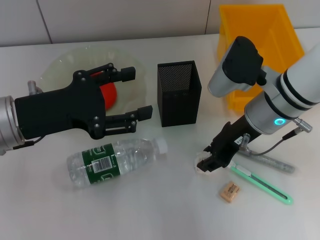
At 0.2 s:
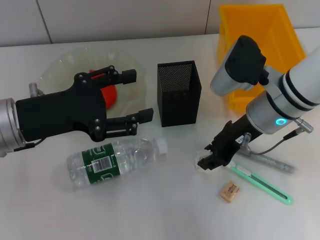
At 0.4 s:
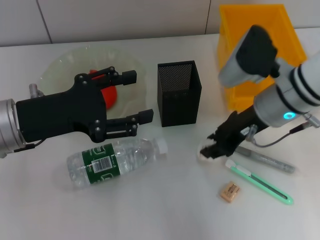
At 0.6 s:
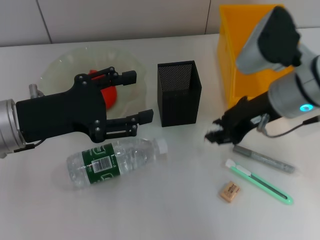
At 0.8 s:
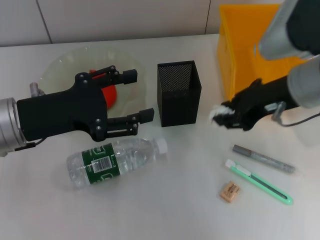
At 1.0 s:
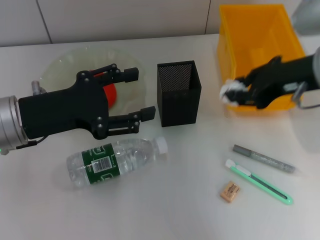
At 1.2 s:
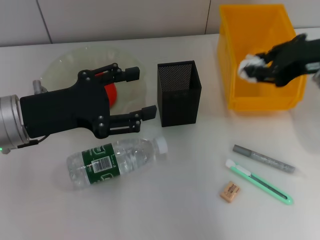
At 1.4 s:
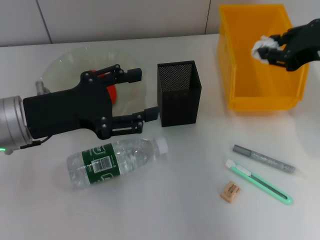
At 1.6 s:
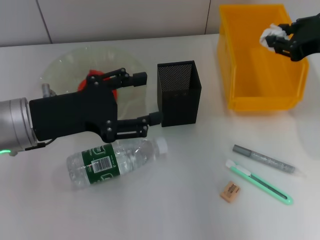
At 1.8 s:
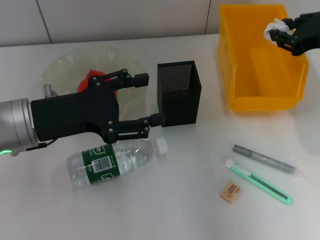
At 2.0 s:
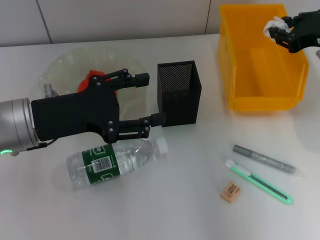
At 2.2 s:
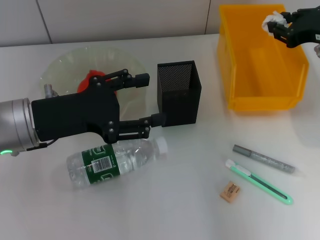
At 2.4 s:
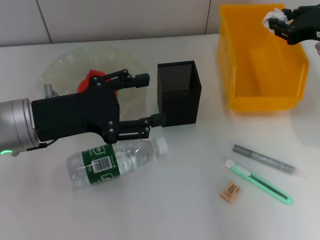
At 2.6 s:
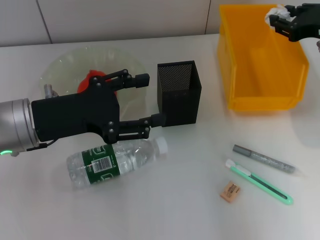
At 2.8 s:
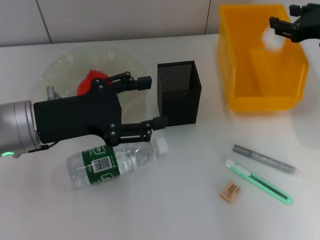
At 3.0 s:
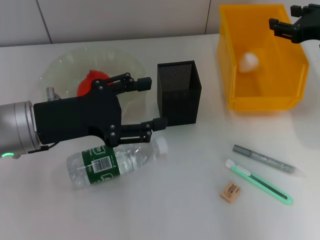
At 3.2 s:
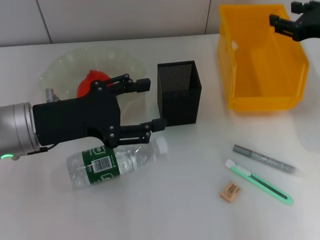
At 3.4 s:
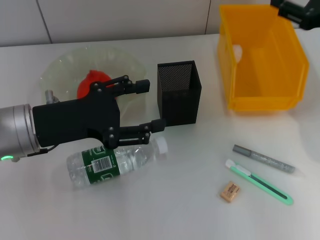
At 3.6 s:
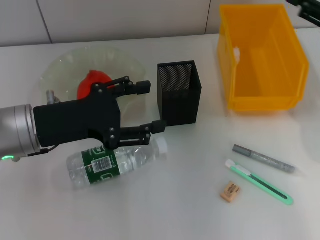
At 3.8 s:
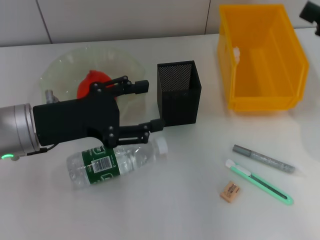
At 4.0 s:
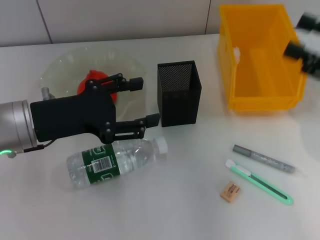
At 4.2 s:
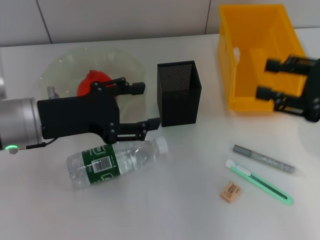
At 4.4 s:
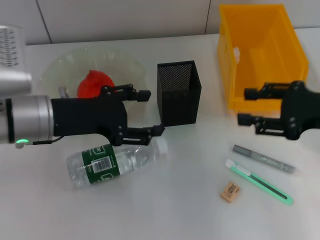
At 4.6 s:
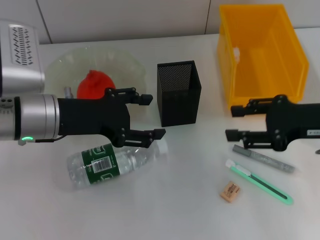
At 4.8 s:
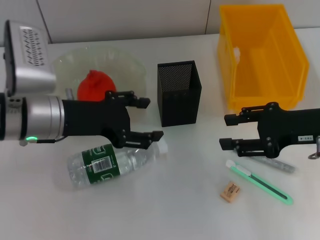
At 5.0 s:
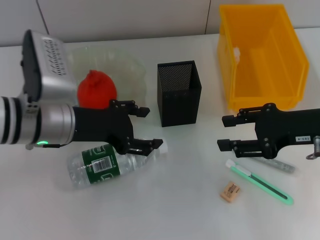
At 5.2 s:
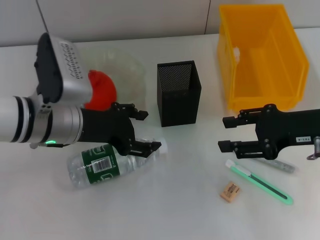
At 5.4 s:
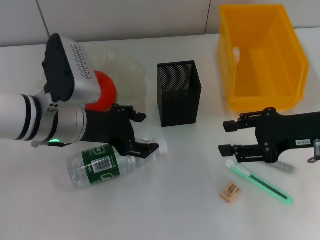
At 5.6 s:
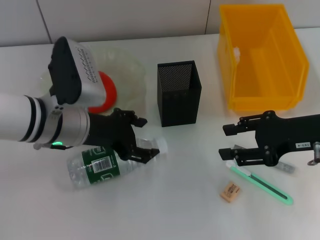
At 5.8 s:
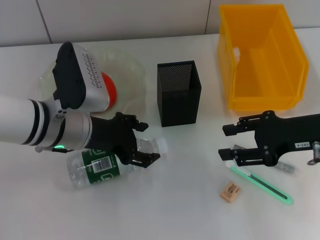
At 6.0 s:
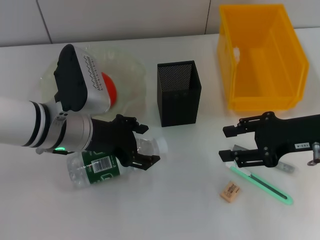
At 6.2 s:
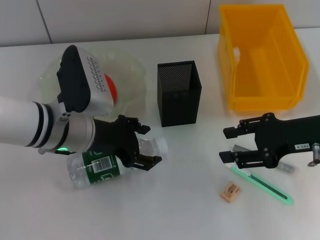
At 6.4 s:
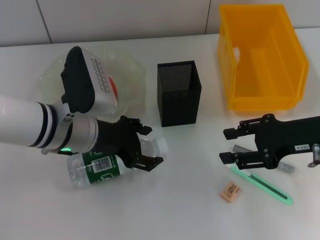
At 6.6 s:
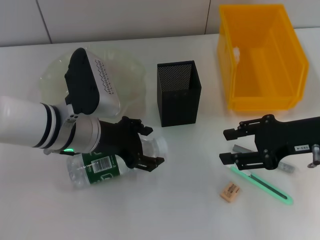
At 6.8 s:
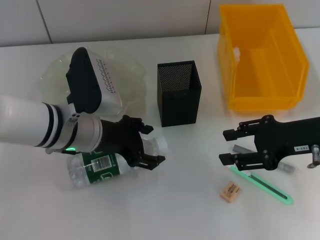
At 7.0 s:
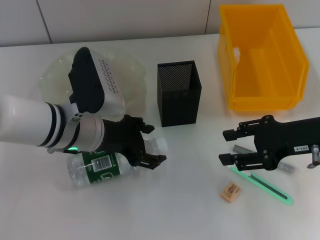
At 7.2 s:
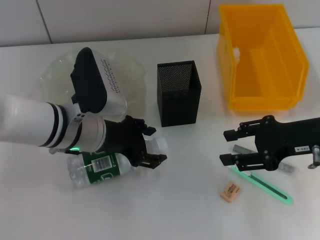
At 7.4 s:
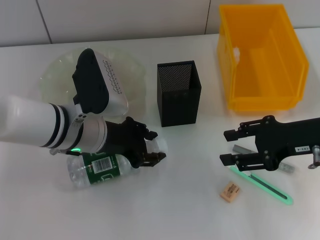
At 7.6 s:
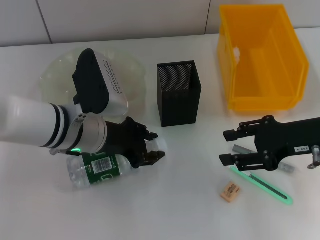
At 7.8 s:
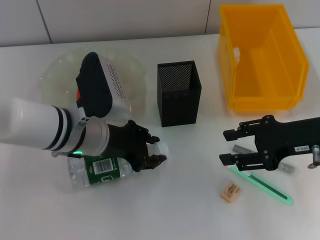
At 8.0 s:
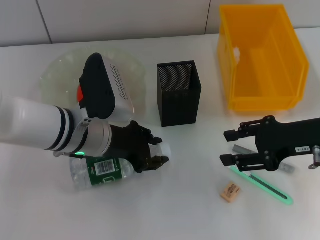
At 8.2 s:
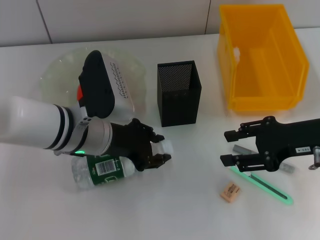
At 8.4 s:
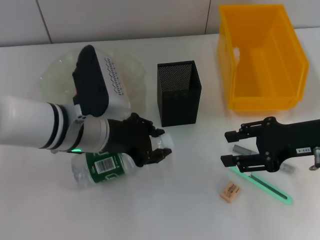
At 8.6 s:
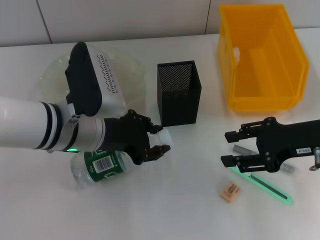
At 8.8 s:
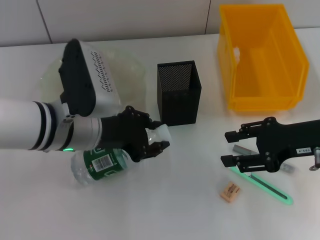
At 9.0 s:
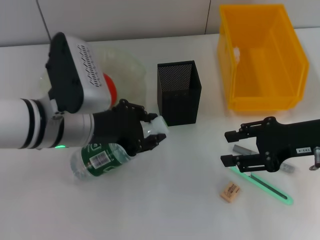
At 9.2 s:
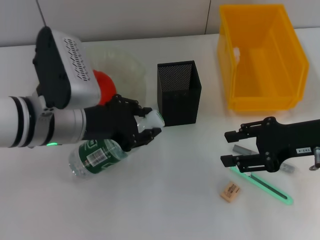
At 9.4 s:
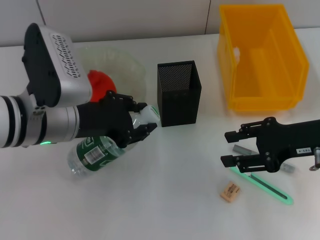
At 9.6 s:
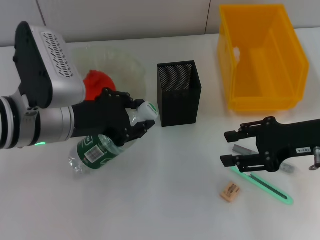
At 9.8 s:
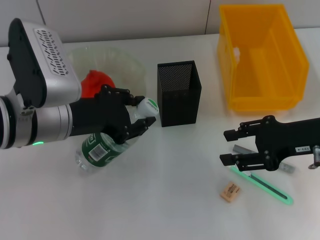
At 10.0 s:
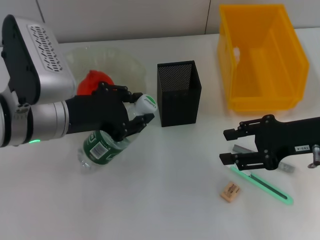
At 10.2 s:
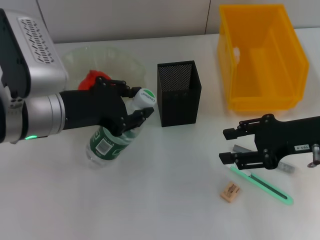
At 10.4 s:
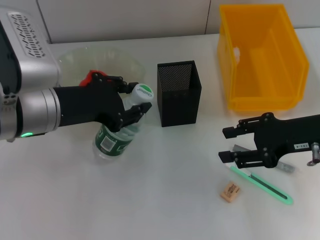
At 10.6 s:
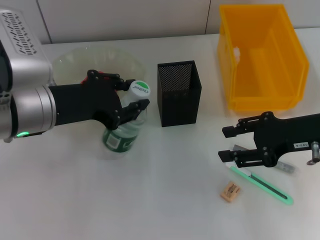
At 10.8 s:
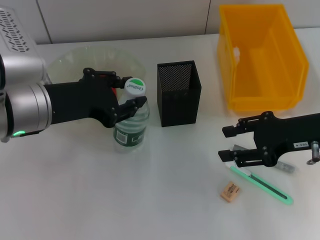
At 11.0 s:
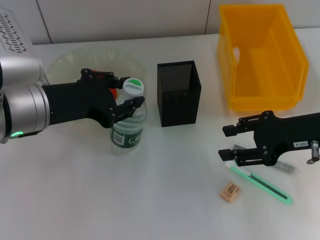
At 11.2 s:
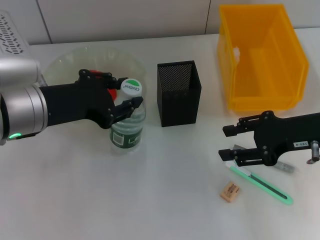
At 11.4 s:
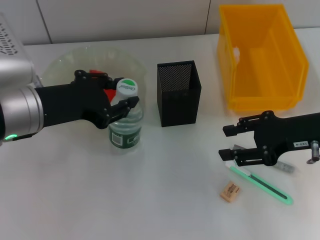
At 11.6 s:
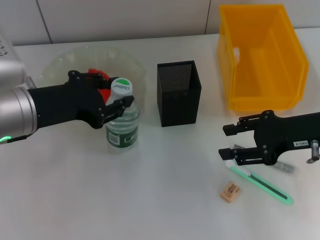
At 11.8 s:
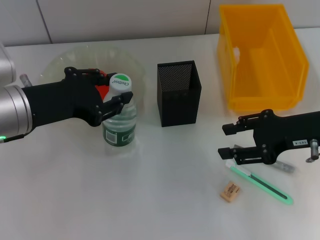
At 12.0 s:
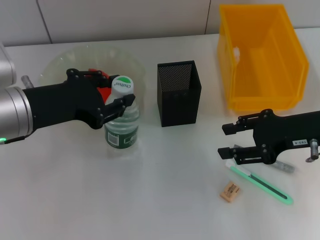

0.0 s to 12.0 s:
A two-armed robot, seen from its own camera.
Step, 0.2 to 2.8 s: Place the paper ball into the trash can with the right hand.
Step, 3.2 to 7.8 s: Grab the water bottle with the left hand.
0.0 to 1.6 s: The right gripper shifts some 15 cm to the right and upward.
1.6 to 3.0 s: The right gripper changes place by roughly 5 cm, and opens up.
3.0 to 4.4 s: The right gripper travels backward by roughly 10 cm.
4.4 to 6.0 s: The left gripper shifts by some 5 cm.
6.0 to 7.6 s: The left gripper closes up.
7.6 to 9.0 s: The grippers move only a little.
9.0 to 10.4 s: The grippers make only small movements.
10.4 to 12.0 s: The grippers stay close to where they were, moving slightly.

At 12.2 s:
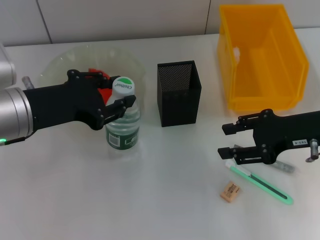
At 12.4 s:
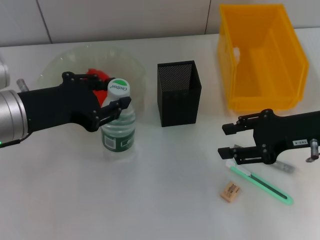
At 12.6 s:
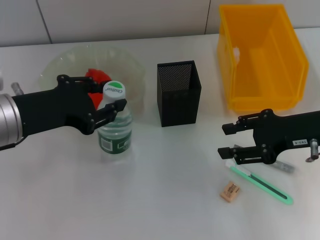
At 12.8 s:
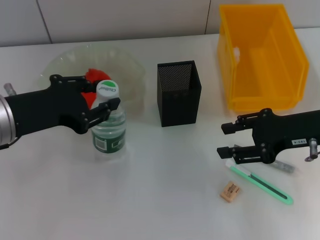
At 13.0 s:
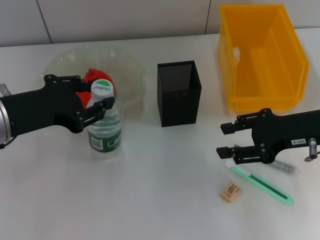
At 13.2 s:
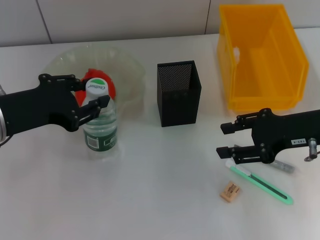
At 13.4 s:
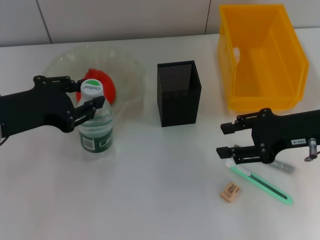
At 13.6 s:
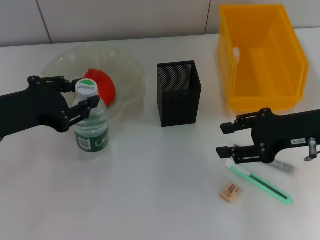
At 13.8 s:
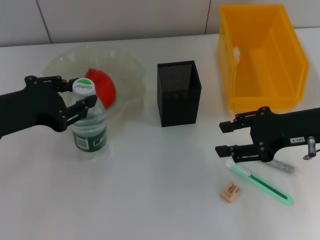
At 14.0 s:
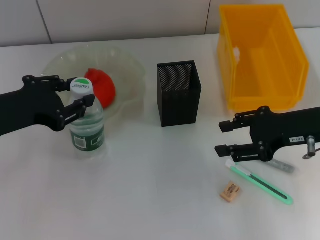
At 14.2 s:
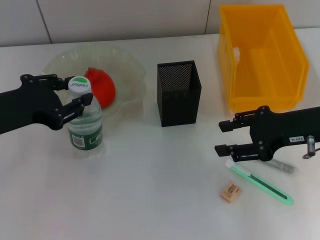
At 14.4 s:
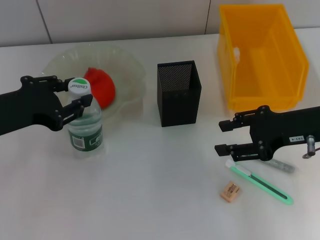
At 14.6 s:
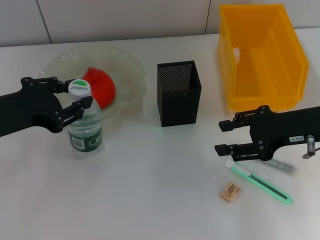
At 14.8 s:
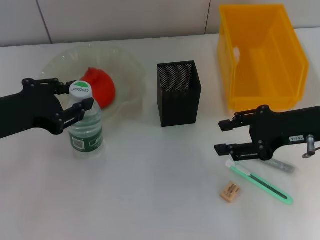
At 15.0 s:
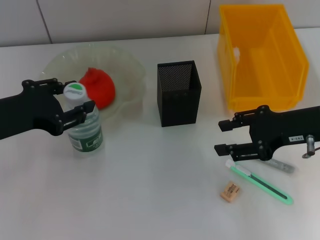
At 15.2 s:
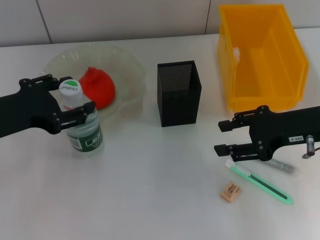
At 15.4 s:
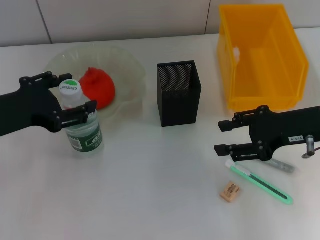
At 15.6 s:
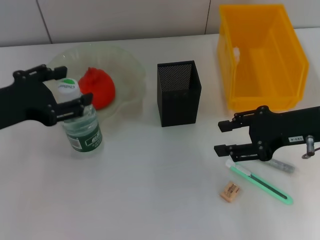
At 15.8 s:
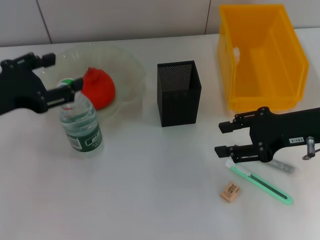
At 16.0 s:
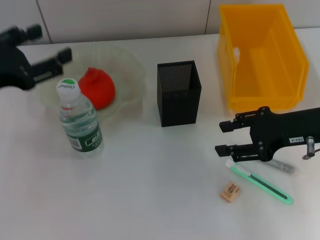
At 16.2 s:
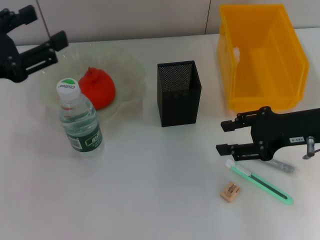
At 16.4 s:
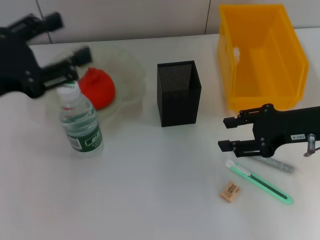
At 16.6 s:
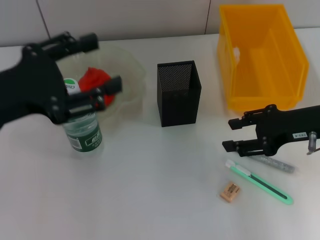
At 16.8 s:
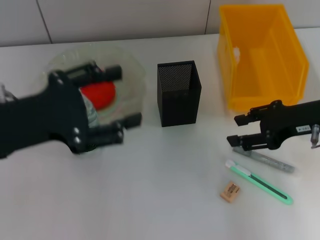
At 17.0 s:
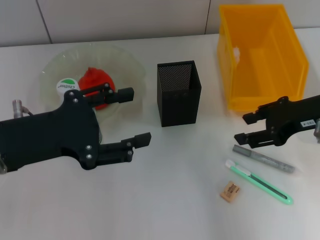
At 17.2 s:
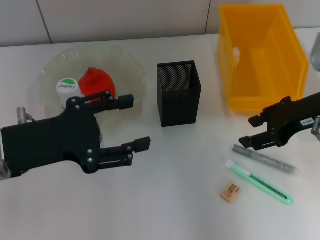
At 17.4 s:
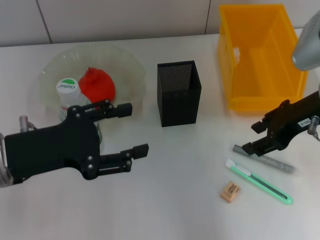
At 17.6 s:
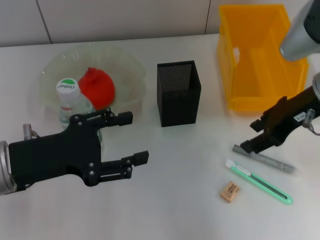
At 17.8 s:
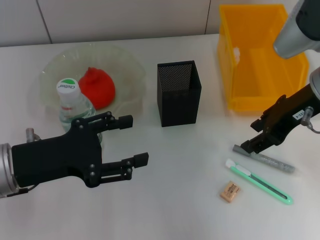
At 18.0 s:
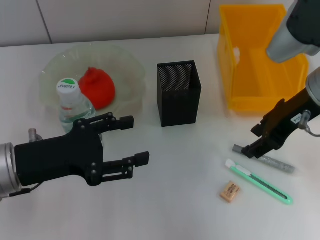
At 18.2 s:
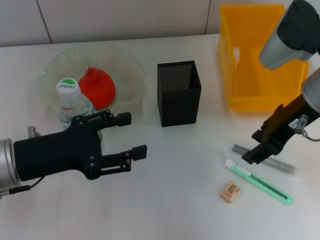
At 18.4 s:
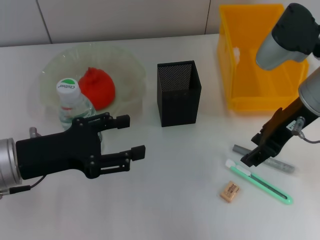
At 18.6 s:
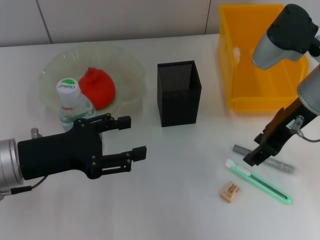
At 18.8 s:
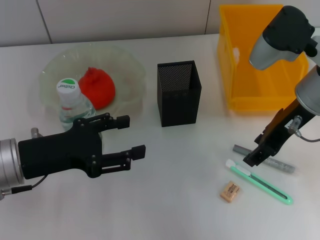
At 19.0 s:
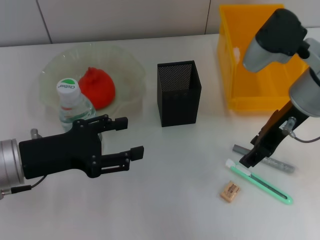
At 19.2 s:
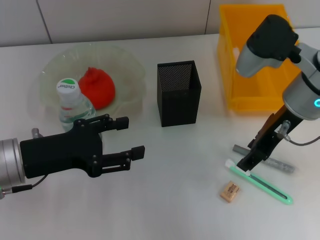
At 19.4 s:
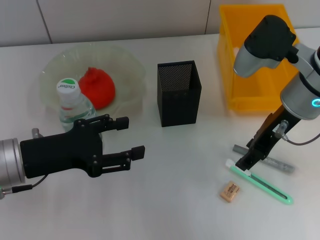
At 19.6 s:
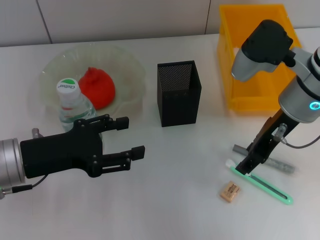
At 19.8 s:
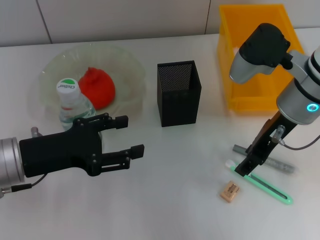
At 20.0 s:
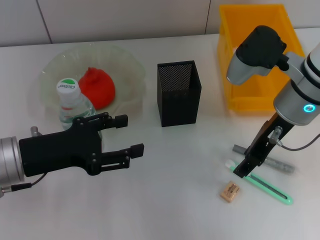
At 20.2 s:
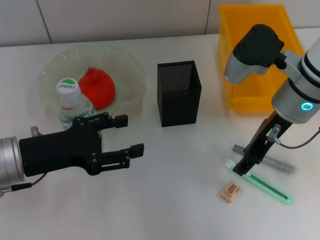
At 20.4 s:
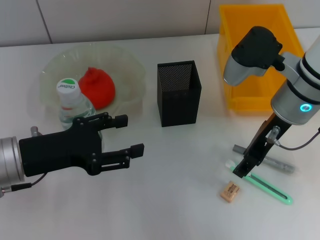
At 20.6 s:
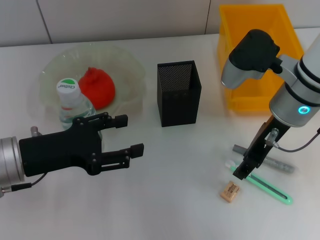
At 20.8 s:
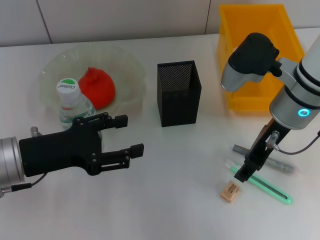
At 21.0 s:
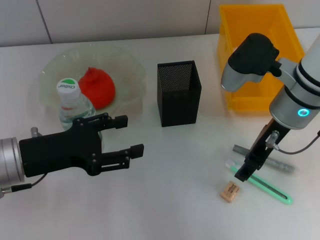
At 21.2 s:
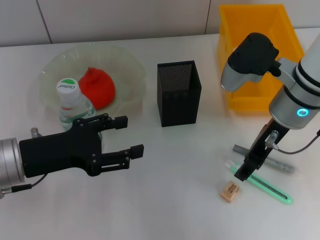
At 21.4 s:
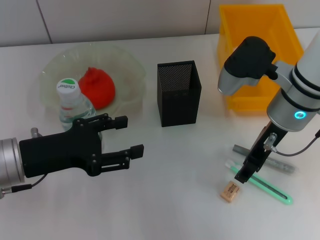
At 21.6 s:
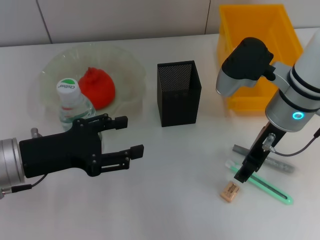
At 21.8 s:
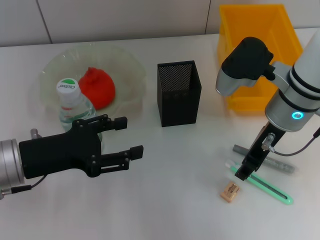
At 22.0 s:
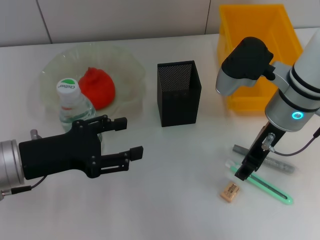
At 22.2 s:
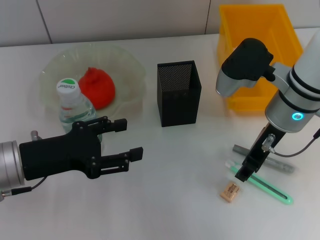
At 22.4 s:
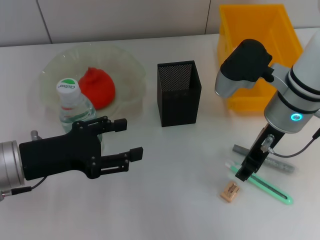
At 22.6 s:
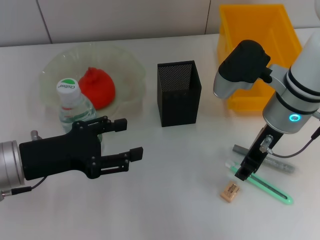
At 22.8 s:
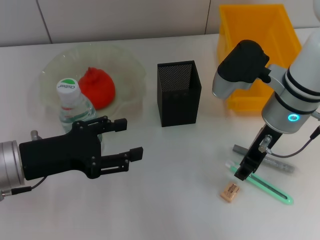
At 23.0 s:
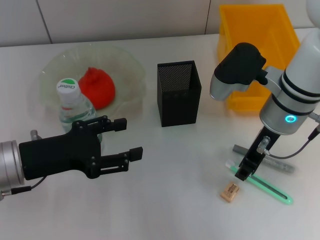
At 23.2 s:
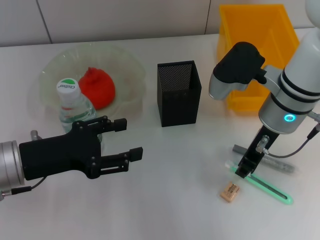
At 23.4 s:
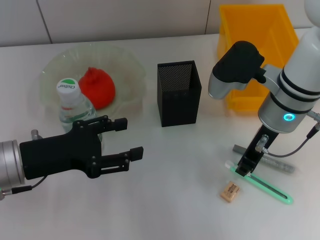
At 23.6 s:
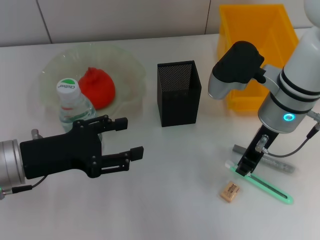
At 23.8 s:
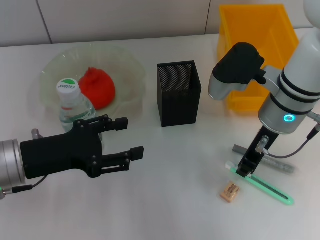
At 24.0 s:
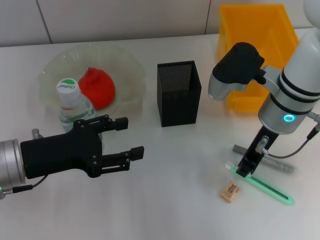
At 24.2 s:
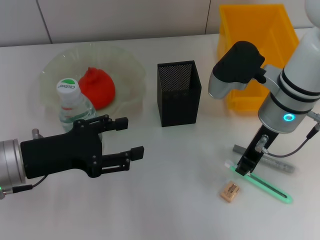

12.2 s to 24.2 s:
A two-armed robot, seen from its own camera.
Step, 12.2 to 15.2 s: Place the water bottle on the table with the left hand.
Step, 15.6 to 23.8 s: Grab the blue utility knife with the right hand.
12.2 to 13.8 s: The grippers move only a little.
13.8 to 15.2 s: Both grippers stay about where they are.
15.2 to 16.6 s: The left gripper opens up.
16.6 to 18.2 s: The right gripper goes some 10 cm upward and to the left; the left gripper travels downward by approximately 10 cm.
18.2 to 21.2 s: The grippers stay close to where they were, moving slightly.
21.2 to 22.6 s: Both grippers stay about where they are.
22.6 to 24.2 s: The right gripper closes its fingers.
